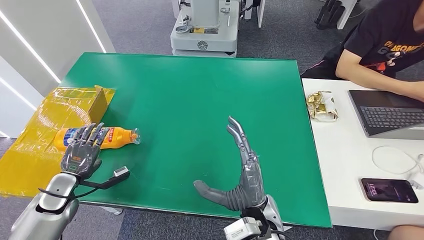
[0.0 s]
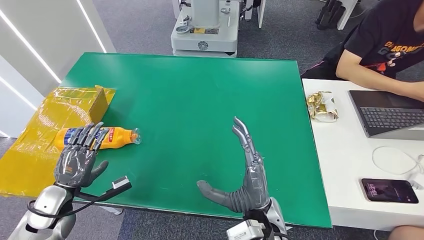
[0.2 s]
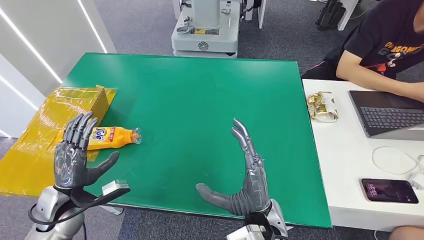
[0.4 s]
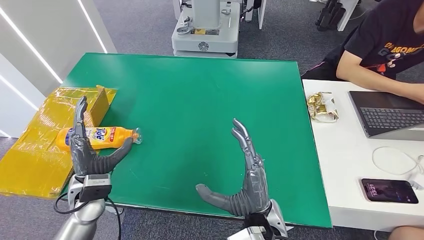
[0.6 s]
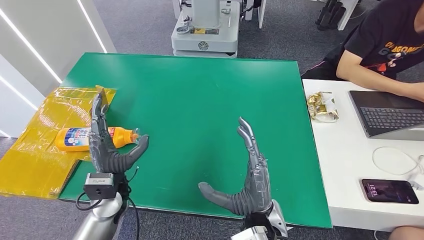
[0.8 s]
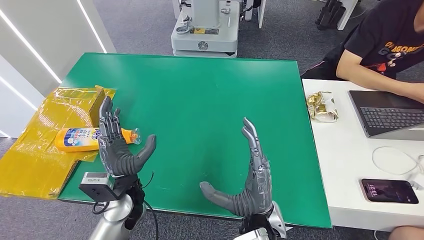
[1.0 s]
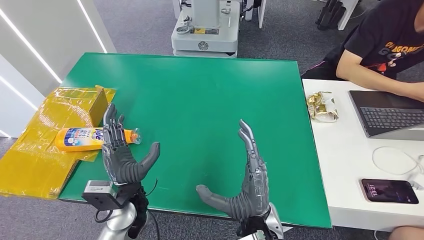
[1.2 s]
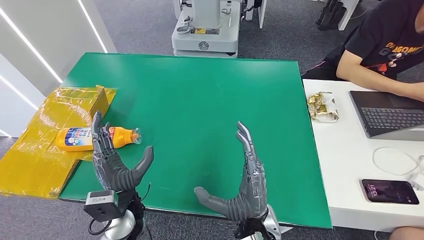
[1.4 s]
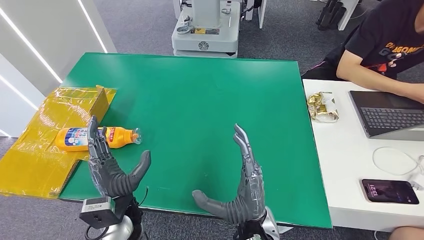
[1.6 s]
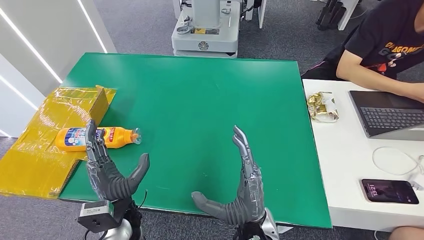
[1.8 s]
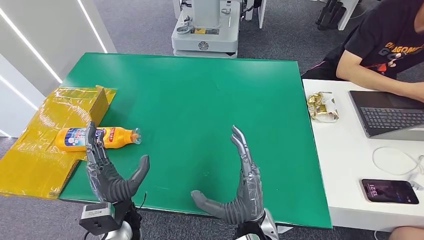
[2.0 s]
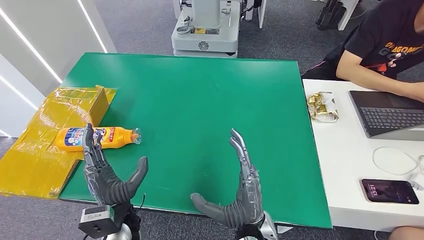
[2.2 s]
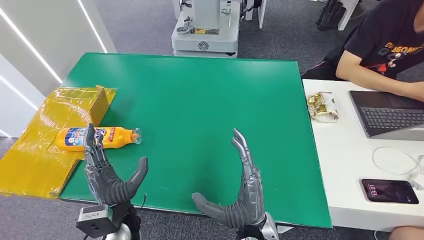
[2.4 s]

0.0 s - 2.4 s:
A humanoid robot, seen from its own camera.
Step, 0.0 s - 2.2 s: Turn the bottle to the front side.
0.0 s - 1.2 s: The left hand shifts about 25 cm to the right.
1.2 s - 2.4 s: There are only small adjustments of the hands.
